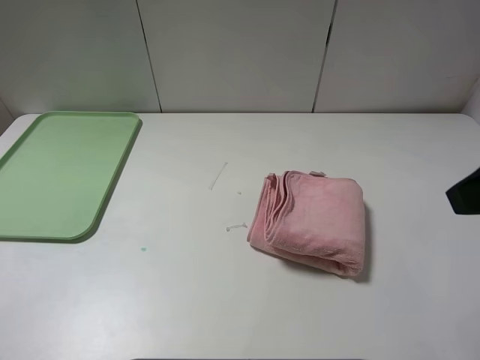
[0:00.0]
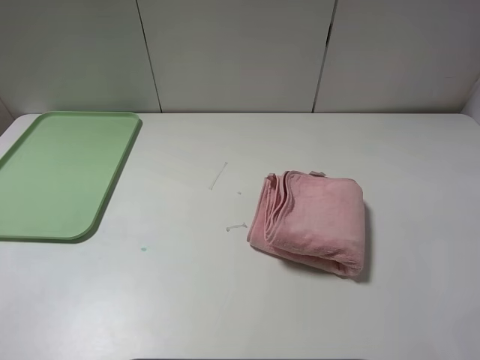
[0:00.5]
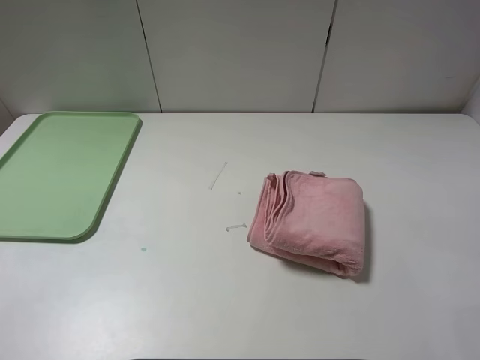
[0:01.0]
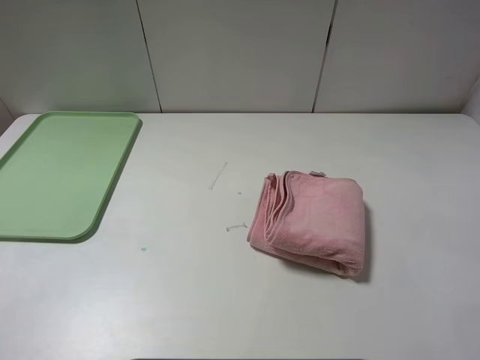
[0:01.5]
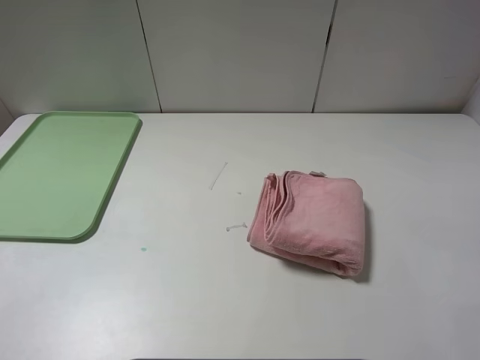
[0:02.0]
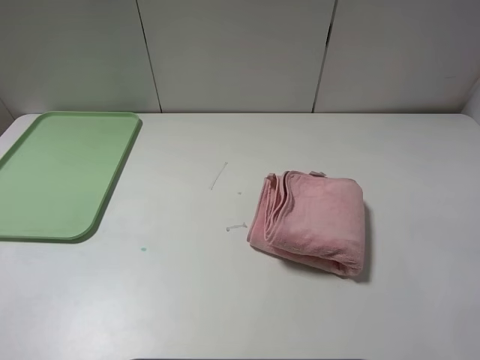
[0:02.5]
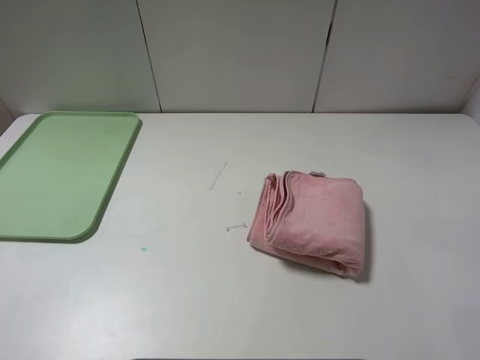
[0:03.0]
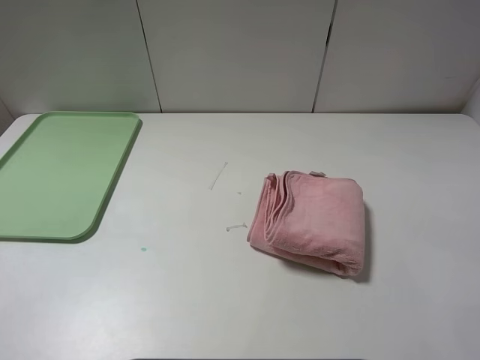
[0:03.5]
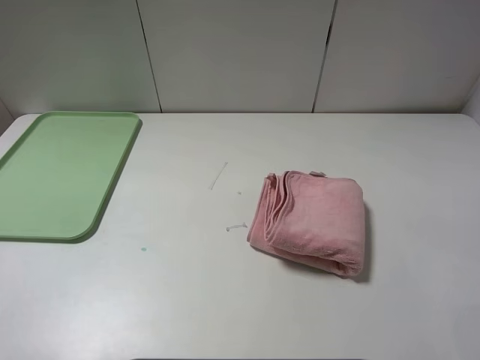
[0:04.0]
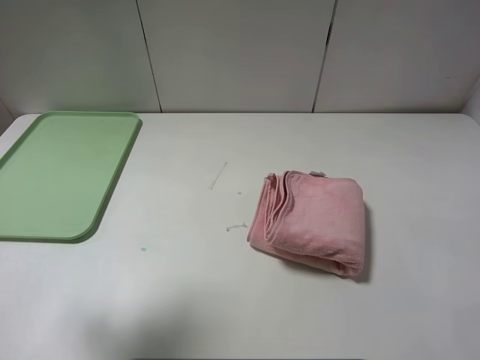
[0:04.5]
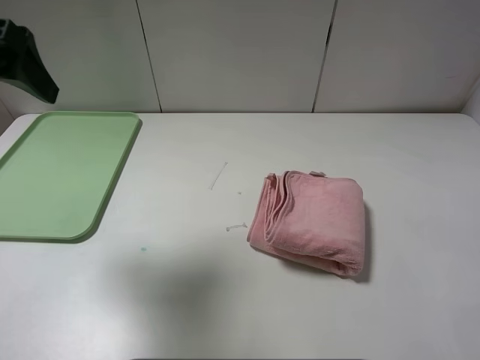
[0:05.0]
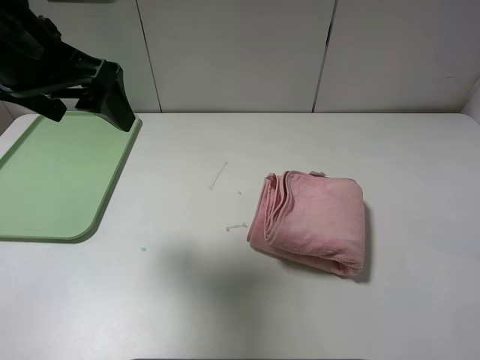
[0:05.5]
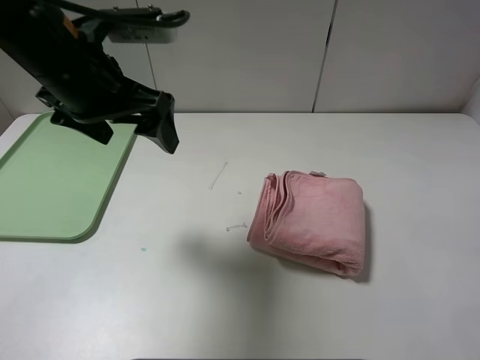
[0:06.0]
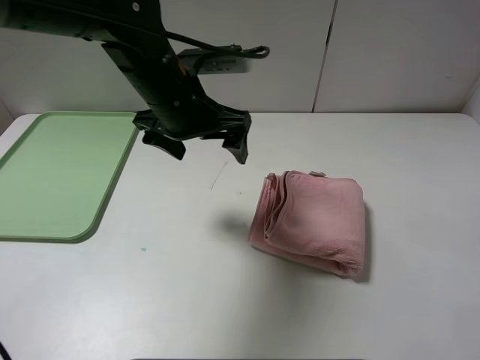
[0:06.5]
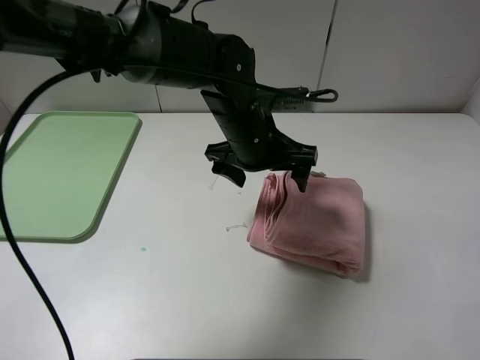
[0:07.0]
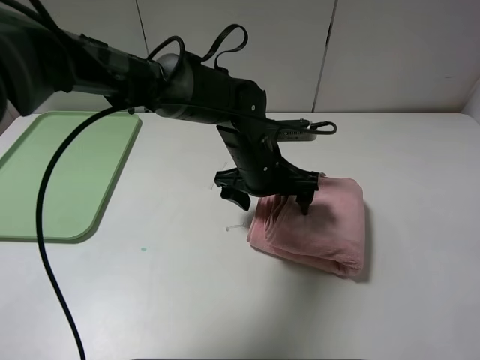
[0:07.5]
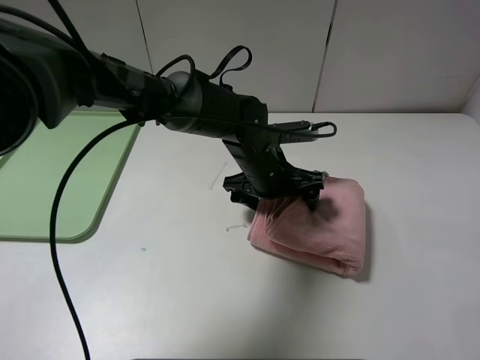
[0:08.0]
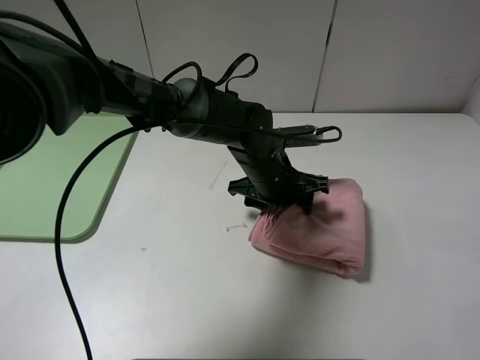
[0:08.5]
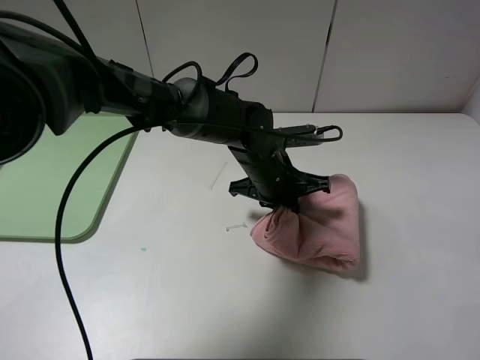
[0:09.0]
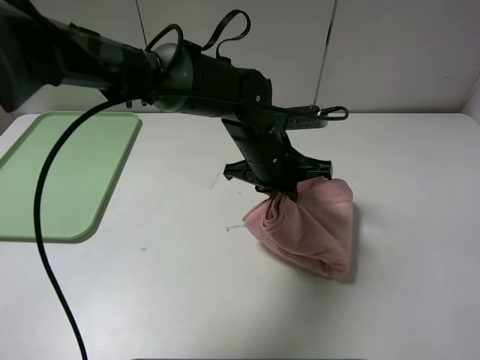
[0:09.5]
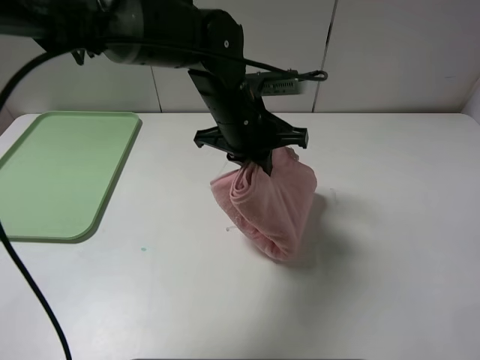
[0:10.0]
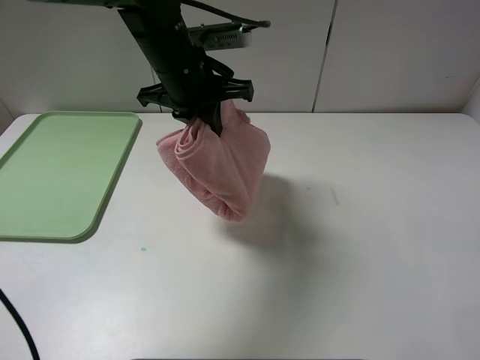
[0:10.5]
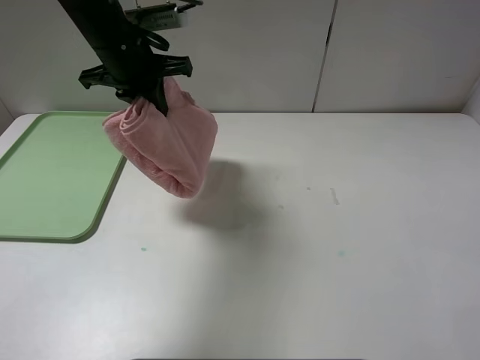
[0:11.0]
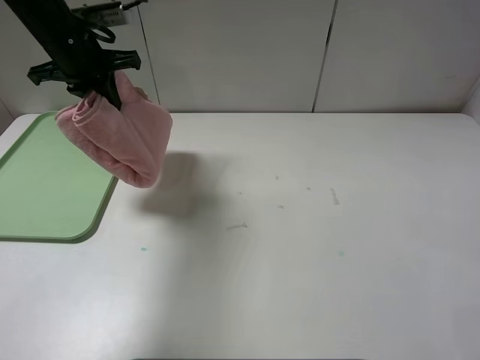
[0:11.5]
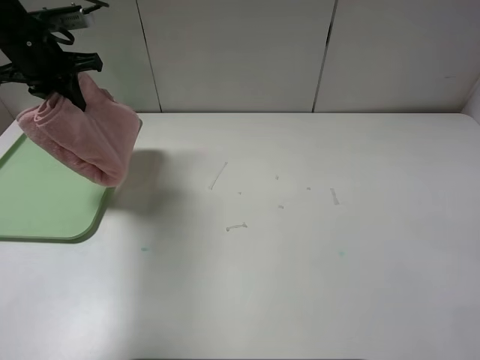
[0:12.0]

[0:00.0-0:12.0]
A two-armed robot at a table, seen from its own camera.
0:00.0 to 0:02.0: The right gripper is displaced backward and downward by approximately 15 cm.
0:04.0 to 0:06.0: The left gripper is displaced forward and to the right by some 30 cm.
0:06.0 to 0:08.0: The left gripper is displaced to the right and downward by some 25 cm.
0:08.0 to 0:10.0: The left gripper travels upward by roughly 10 cm, and closes its fingers.
0:10.0 to 0:12.0: The left gripper heads to the left, covering some 30 cm.

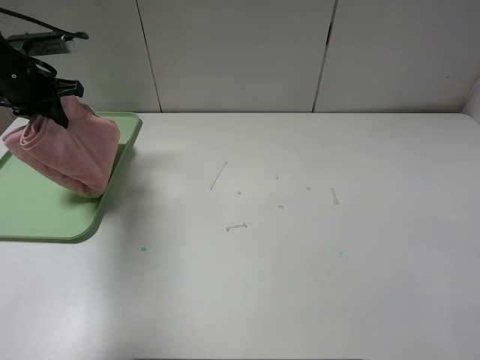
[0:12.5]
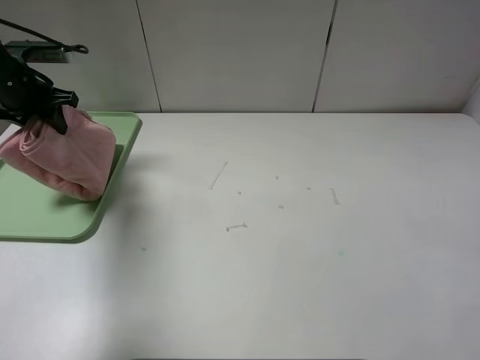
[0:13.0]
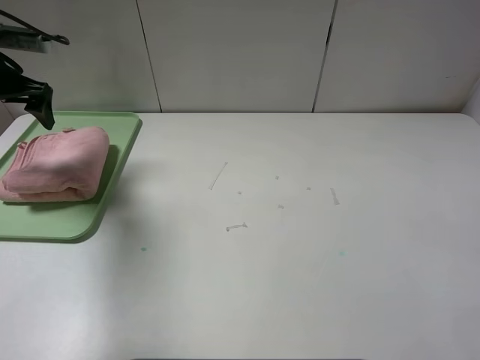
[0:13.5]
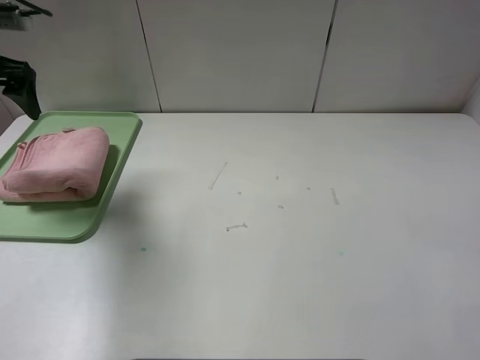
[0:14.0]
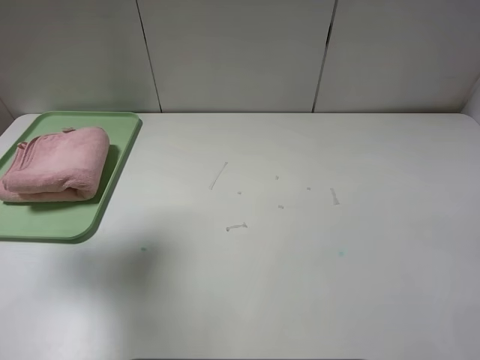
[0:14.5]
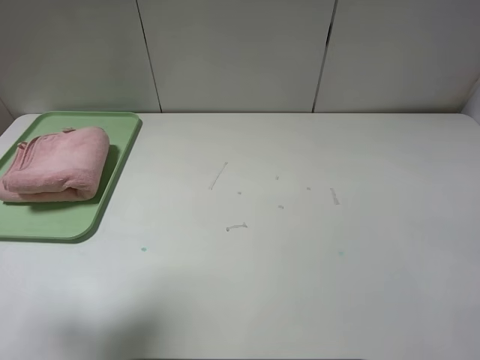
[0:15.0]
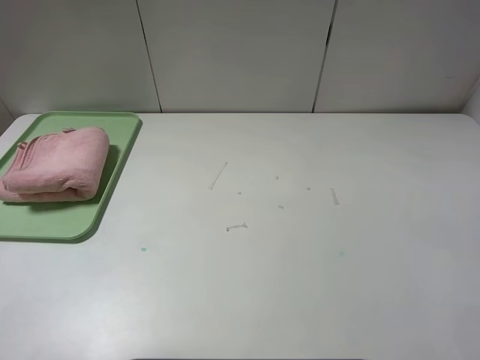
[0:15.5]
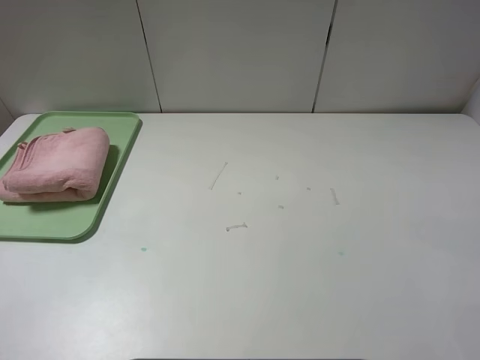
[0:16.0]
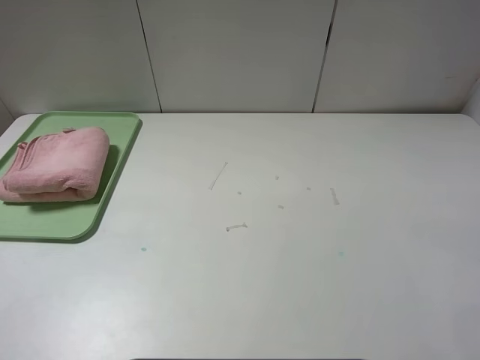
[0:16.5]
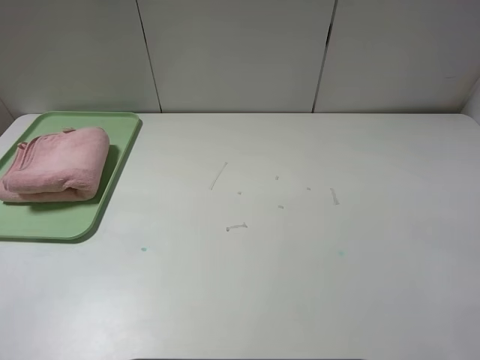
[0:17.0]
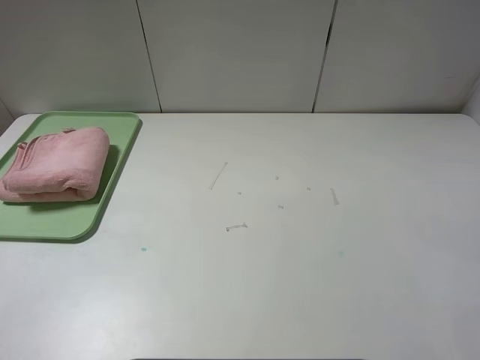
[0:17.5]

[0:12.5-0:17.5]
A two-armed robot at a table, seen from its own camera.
0:12.5 to 0:15.0: The left gripper shifts some 30 cm backward and upward, and opens its fingers.
0:15.0 to 0:17.5: The left gripper shifts approximately 20 cm backward and downward.

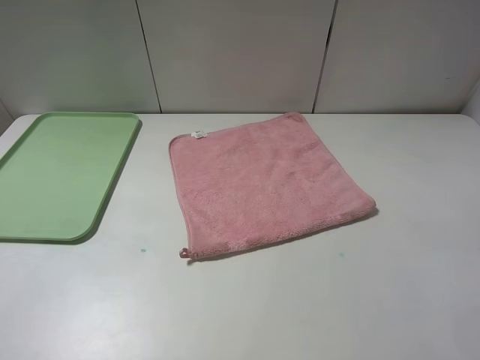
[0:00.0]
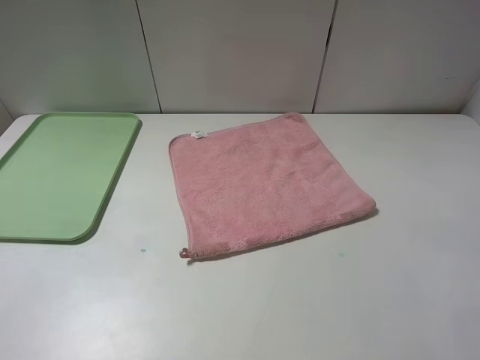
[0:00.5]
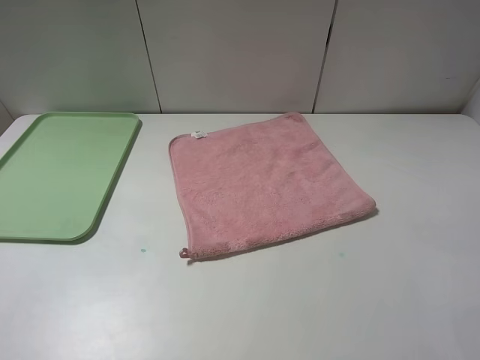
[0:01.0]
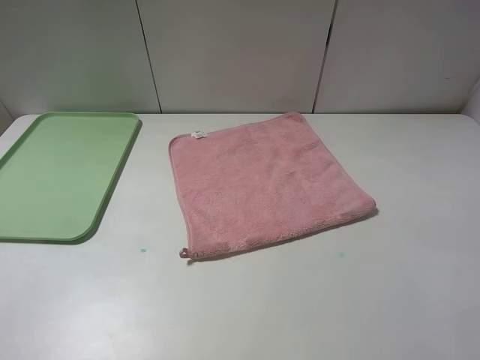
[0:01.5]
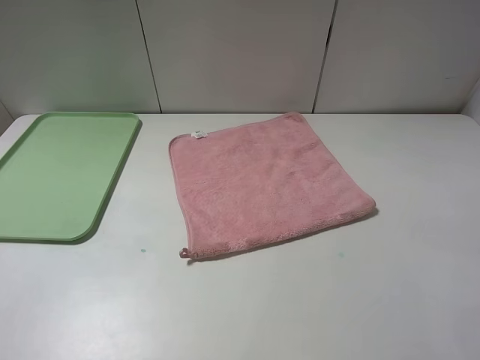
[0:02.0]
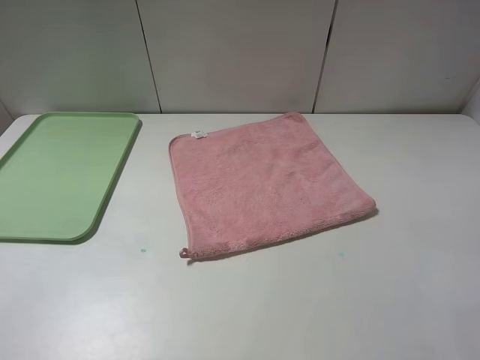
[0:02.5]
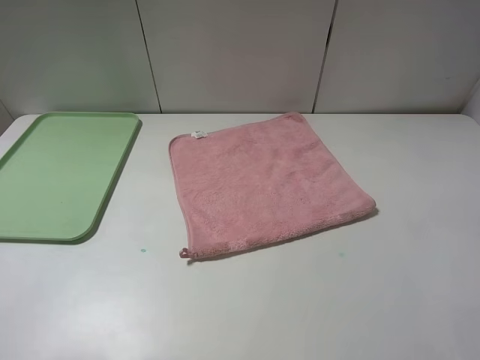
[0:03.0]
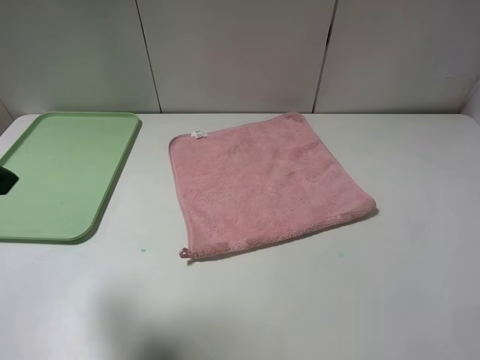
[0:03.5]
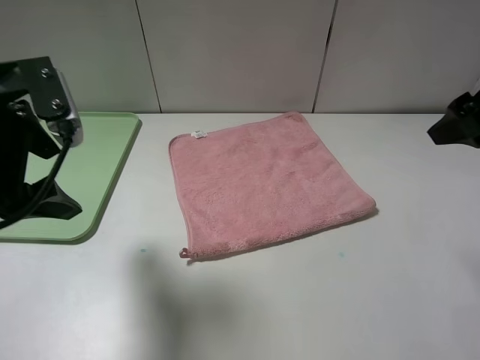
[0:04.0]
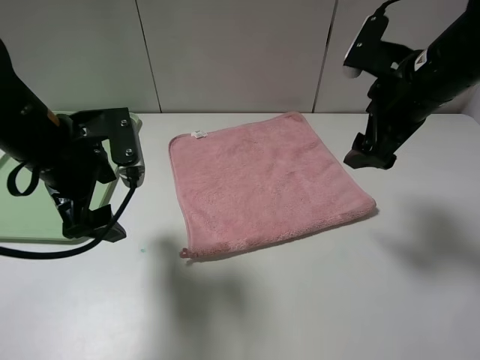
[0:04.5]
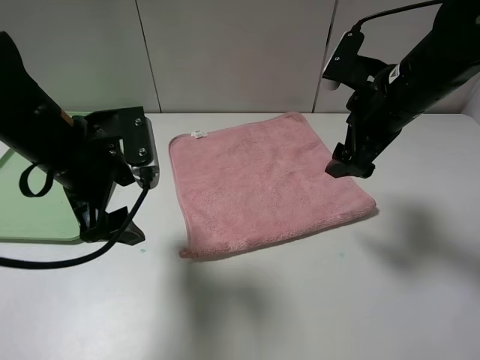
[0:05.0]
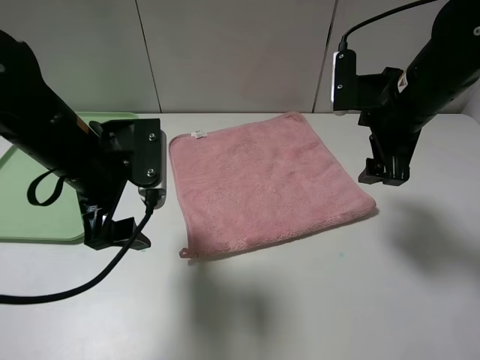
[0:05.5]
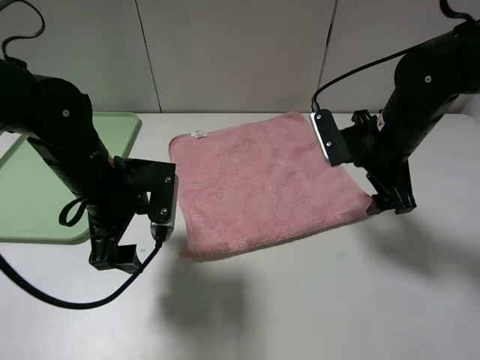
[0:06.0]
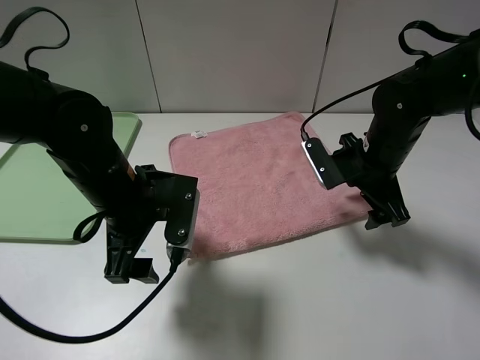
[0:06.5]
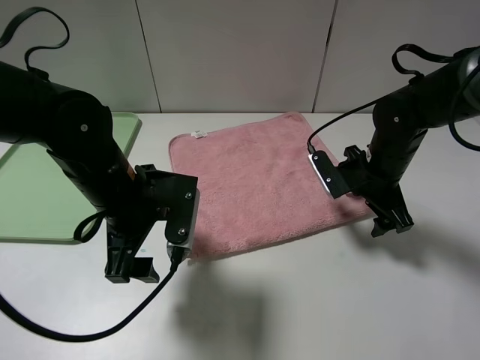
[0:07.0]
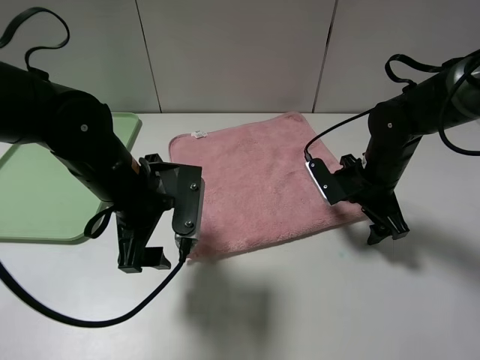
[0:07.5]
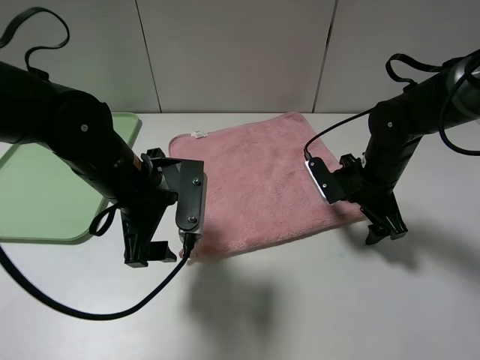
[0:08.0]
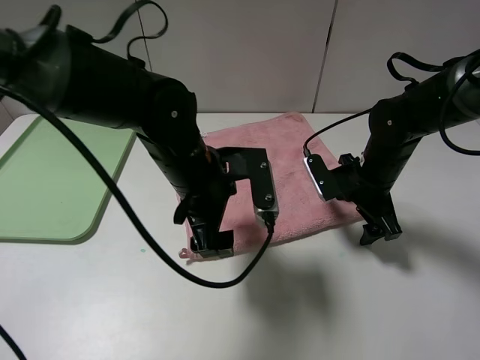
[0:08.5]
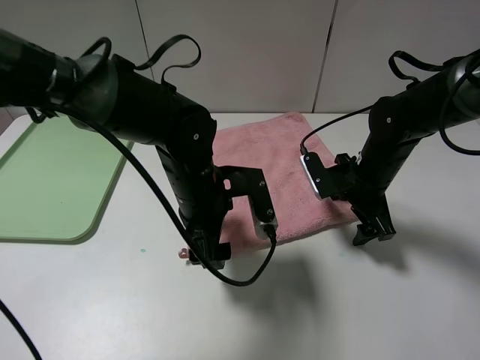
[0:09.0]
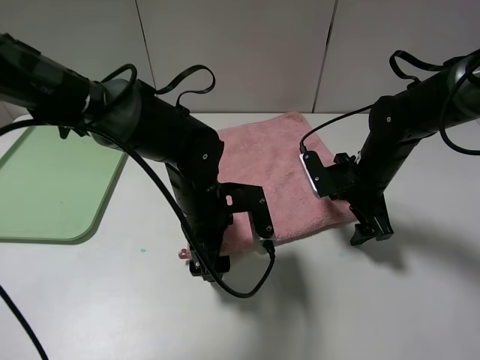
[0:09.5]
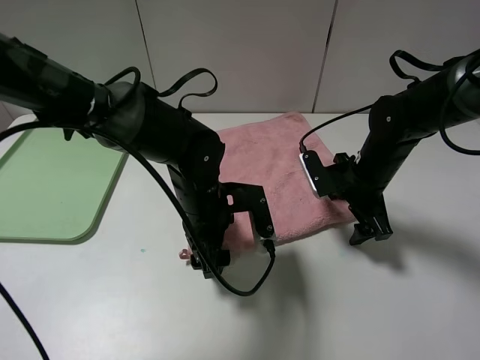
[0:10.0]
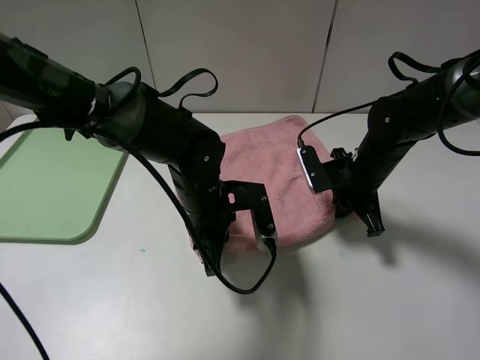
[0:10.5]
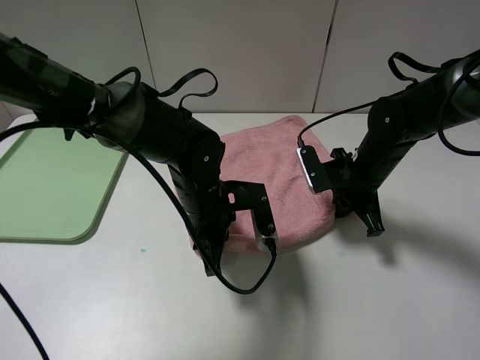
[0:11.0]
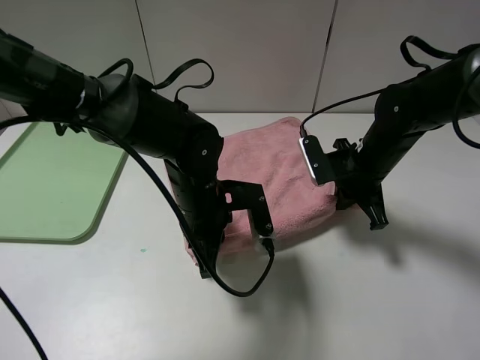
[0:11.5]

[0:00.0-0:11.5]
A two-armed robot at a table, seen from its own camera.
0:00.0 to 0:02.0: Both grippers stay about where they are.
0:02.0 to 0:04.0: Both grippers move forward, roughly 20 cm.
0:04.0 to 0:06.0: The left gripper goes about 15 cm downward and to the right, while the right gripper shifts some 15 cm downward, to the left and forward.
0:06.0 to 0:07.5: The right gripper is displaced downward by some 10 cm.
0:07.5 to 0:09.5: The left gripper heads to the right and downward, covering roughly 10 cm.
0:09.5 to 0:11.5: The left gripper closes its fingers; the right gripper closes its fingers.
